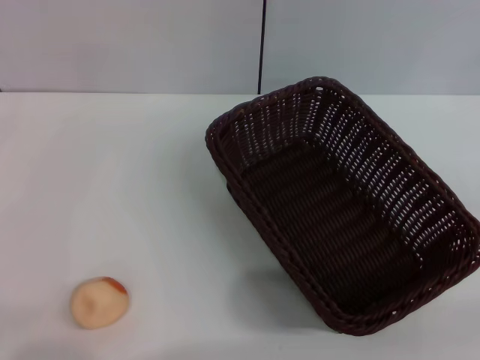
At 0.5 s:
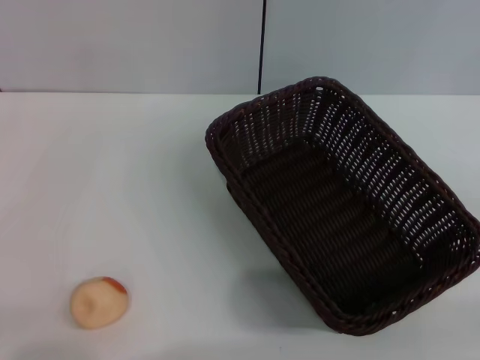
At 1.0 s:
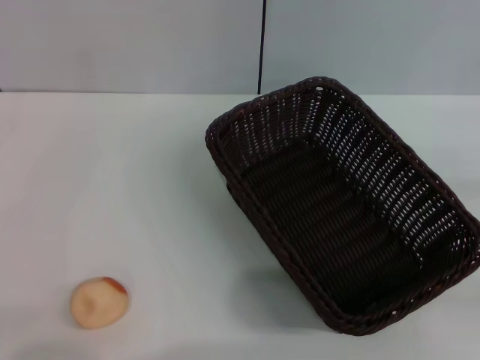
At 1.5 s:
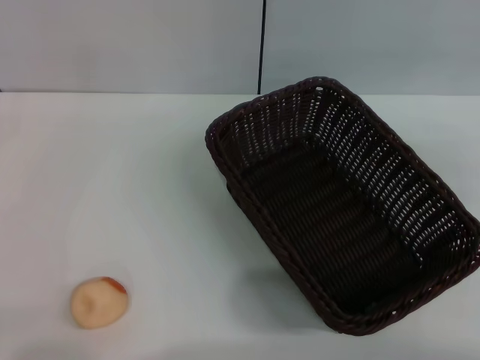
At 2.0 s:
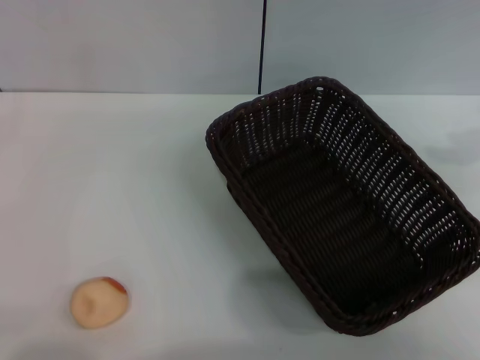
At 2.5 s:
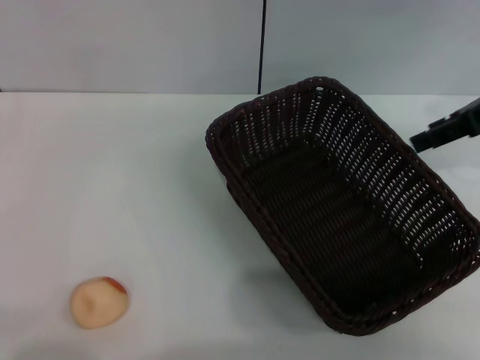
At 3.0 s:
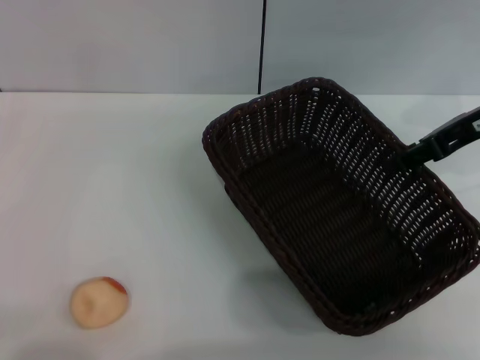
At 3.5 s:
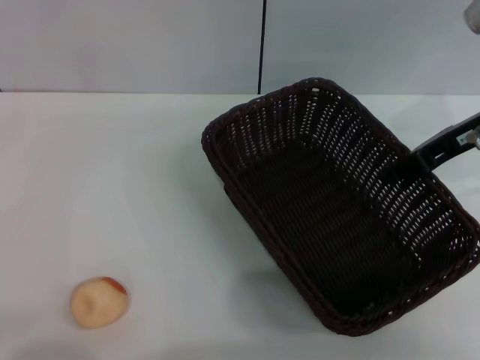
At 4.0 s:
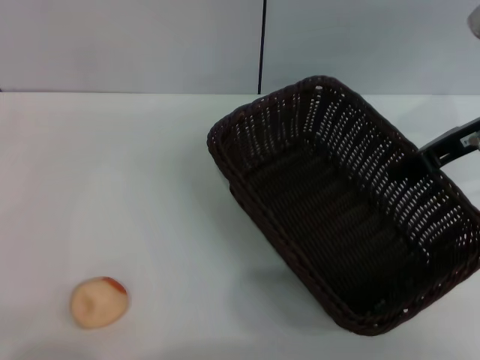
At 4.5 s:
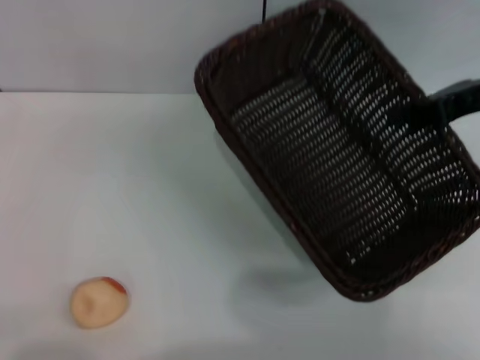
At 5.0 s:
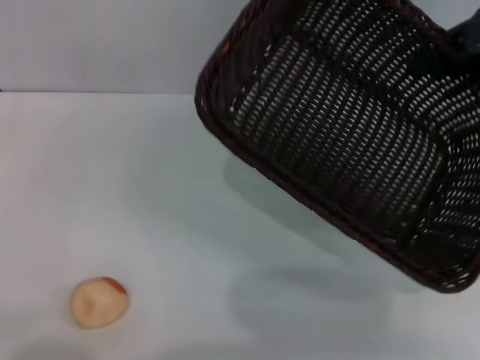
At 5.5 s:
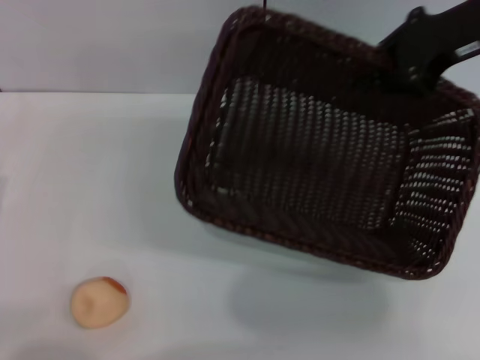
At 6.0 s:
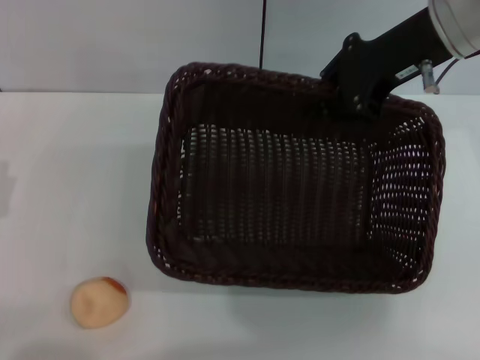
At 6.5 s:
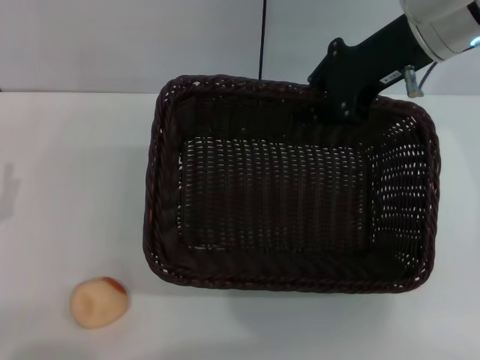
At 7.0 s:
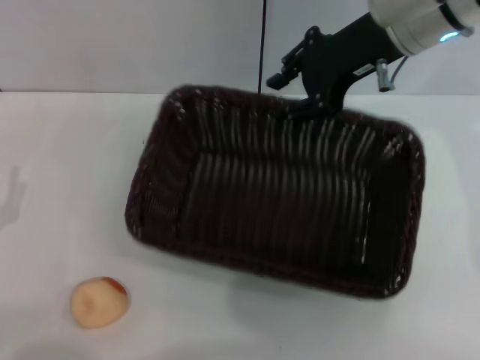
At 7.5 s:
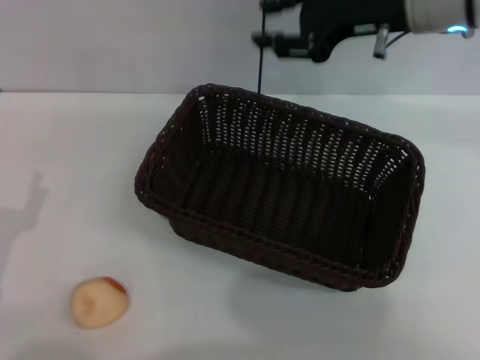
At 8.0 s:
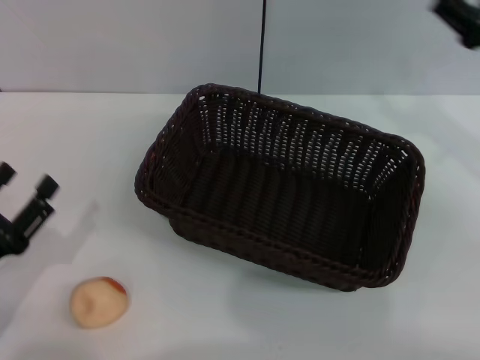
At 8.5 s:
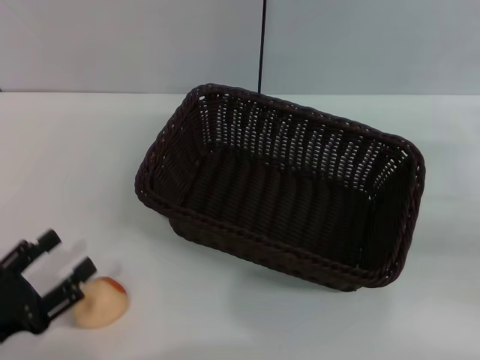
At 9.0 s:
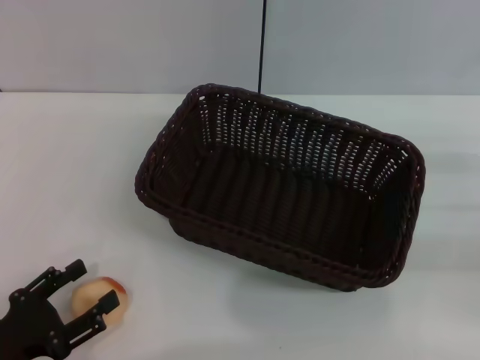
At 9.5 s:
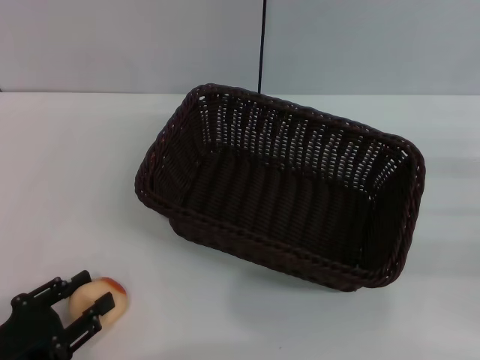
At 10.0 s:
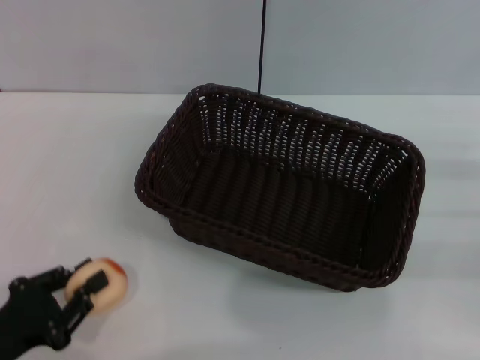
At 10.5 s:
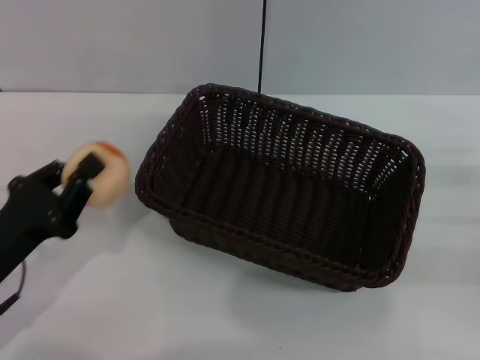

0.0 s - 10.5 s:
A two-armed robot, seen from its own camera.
Step, 0.0 s - 7.0 s: Move the basket to the center of view with the right gripper.
Step, 7.5 s - 10.0 s: Pick up the egg yolk pastry with the left gripper.
0.0 s - 2.0 s: The right gripper shifts approximately 25 cm upward and forward.
2.0 s - 4.0 s: The right gripper moves downward and to the left, some 15 cm, and closes.
4.0 s - 6.5 s: The right gripper moves to the left and upward, some 10 cm.
6.5 s - 8.5 s: The right gripper travels to the right, downward and backward by some 30 cm, and opens up. The left gripper goes about 5 cm backward.
8.5 s - 10.5 s: The left gripper shifts by about 5 cm, and closes its fingers.

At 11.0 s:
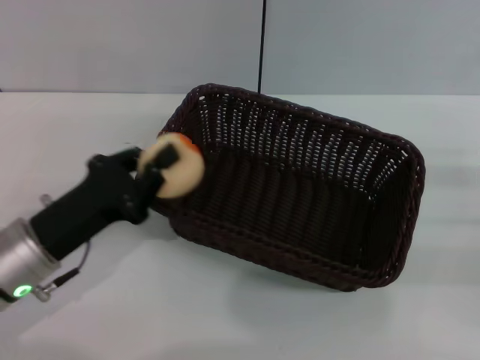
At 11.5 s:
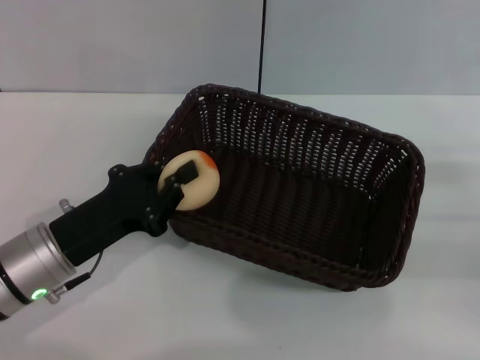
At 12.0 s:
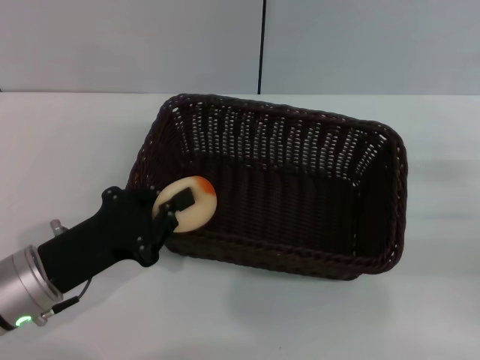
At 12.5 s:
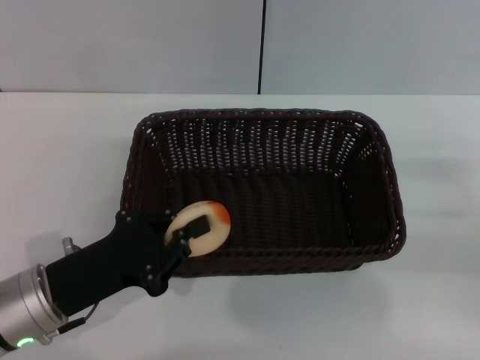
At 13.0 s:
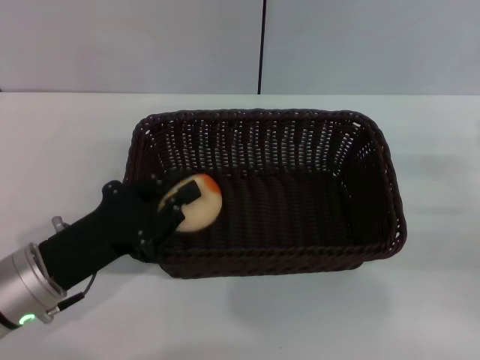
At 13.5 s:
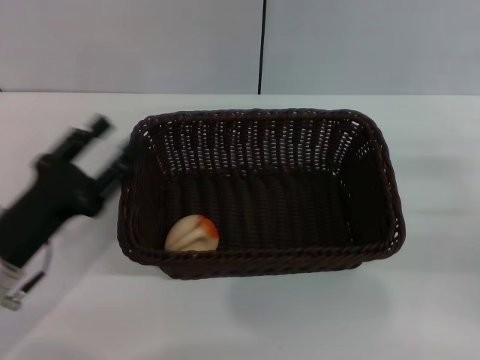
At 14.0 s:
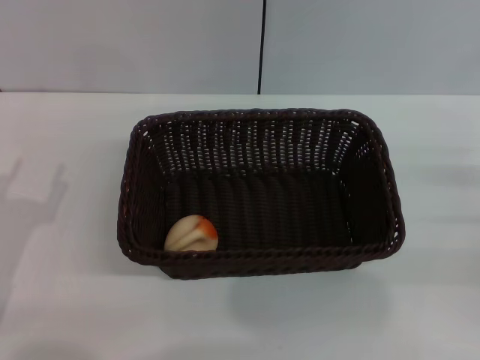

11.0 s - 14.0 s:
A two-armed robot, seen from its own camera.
Step, 11.0 s - 13.0 s: Place the egg yolk pastry into the basket with the left gripper.
12.5 s - 14.0 s: The left gripper travels to the left by some 5 cm, and opens.
